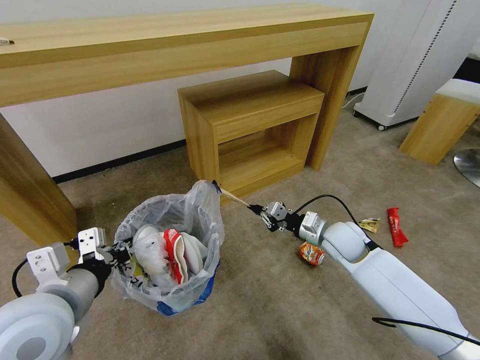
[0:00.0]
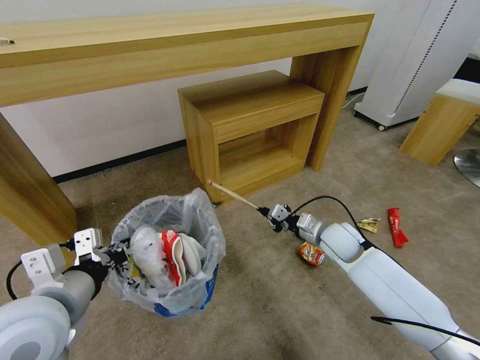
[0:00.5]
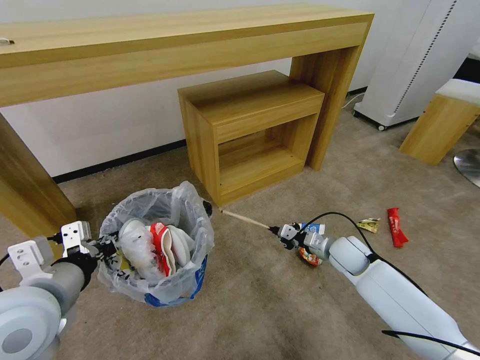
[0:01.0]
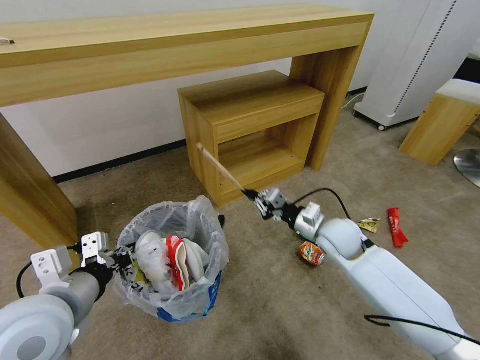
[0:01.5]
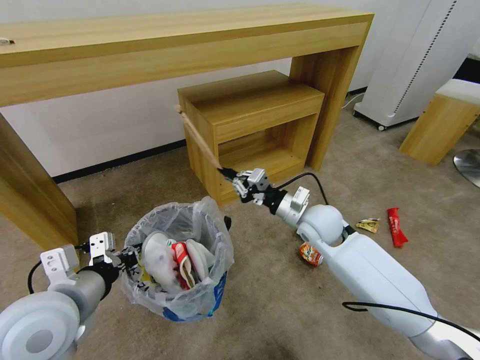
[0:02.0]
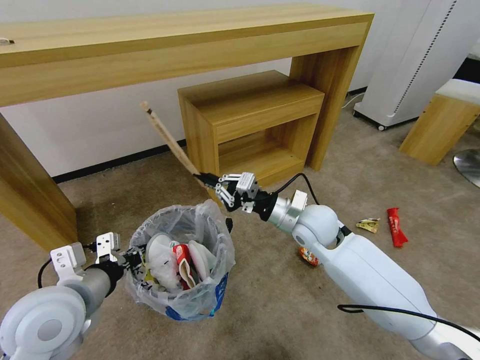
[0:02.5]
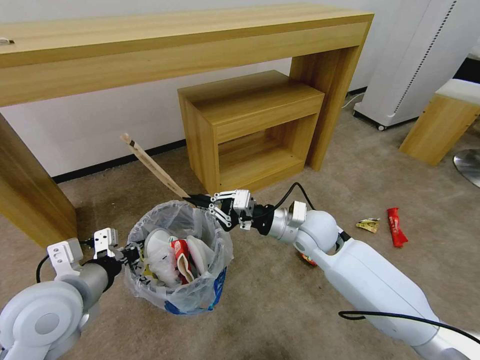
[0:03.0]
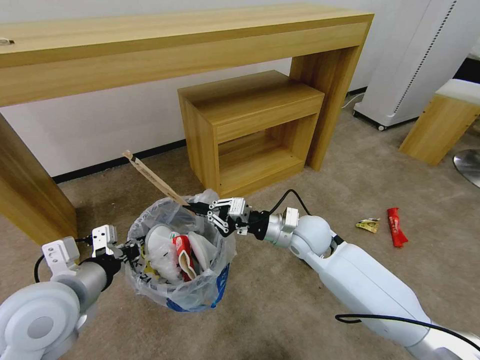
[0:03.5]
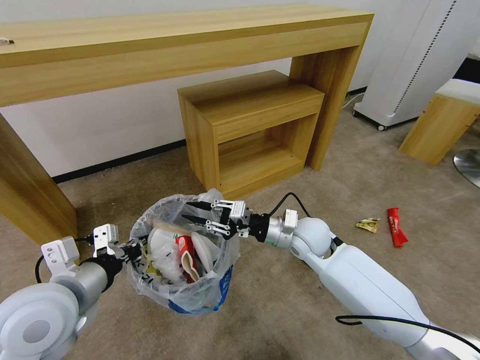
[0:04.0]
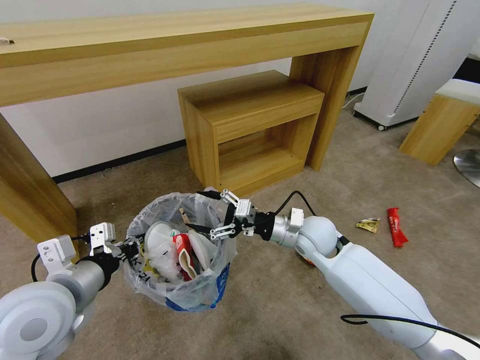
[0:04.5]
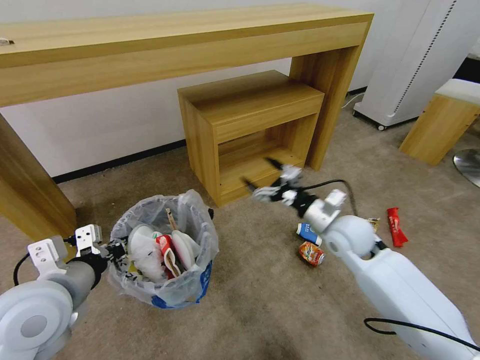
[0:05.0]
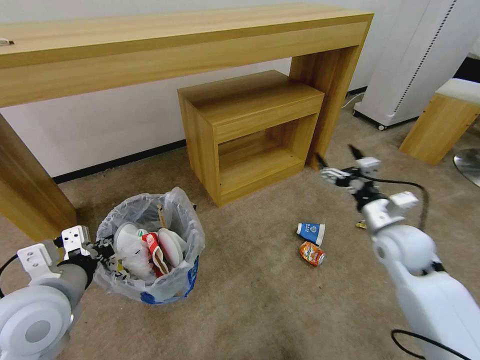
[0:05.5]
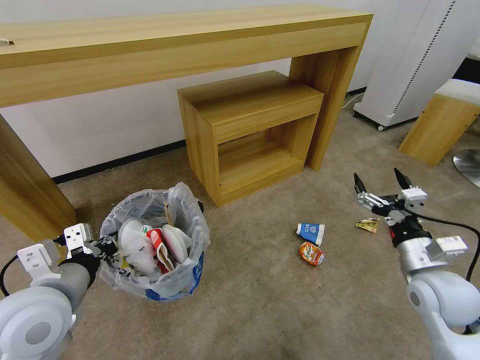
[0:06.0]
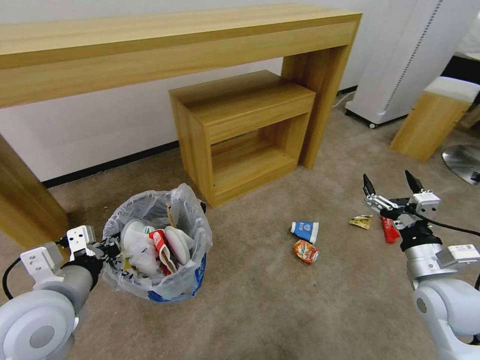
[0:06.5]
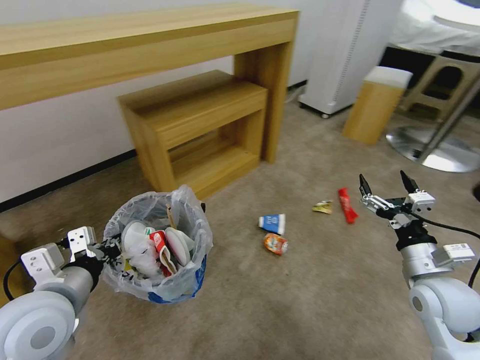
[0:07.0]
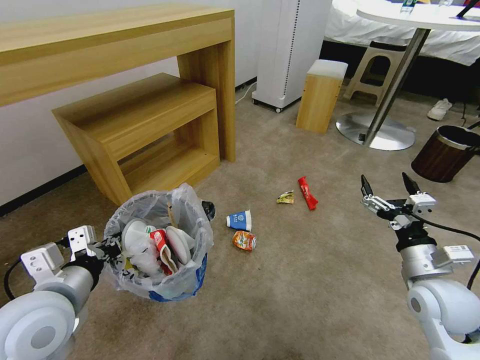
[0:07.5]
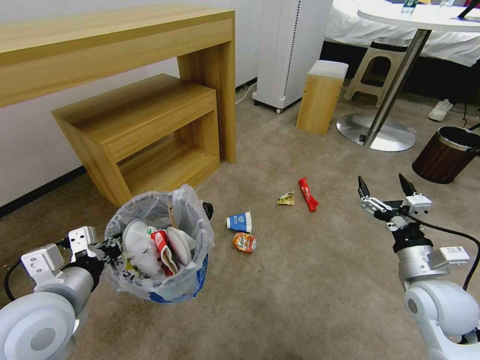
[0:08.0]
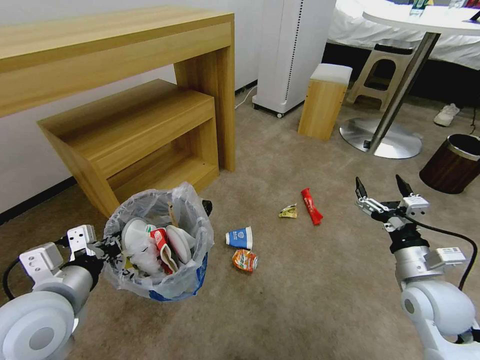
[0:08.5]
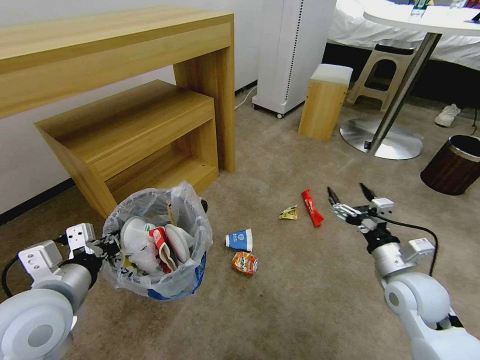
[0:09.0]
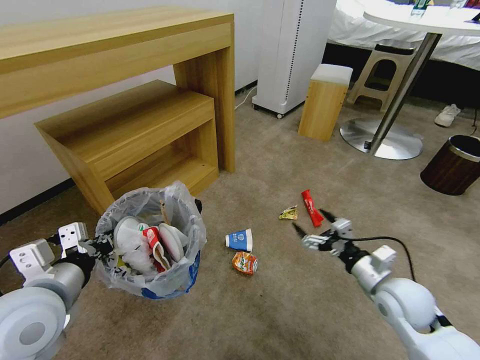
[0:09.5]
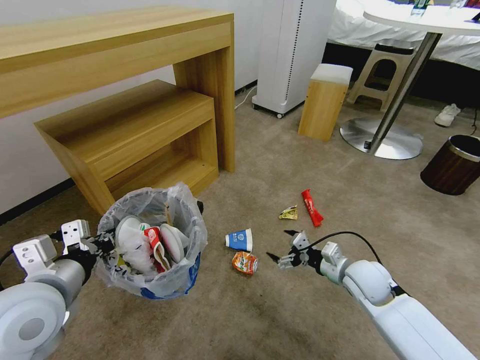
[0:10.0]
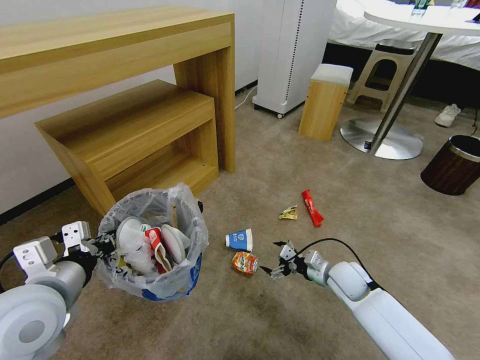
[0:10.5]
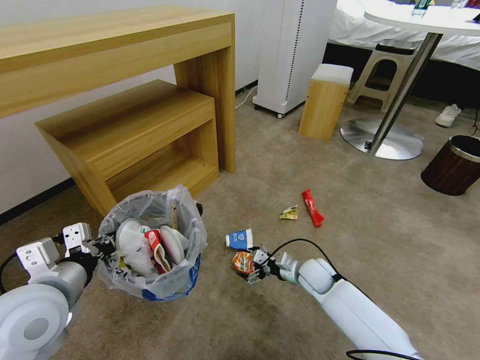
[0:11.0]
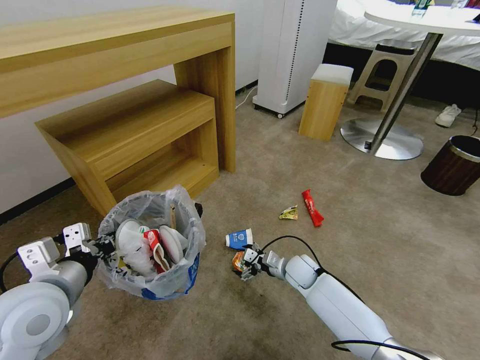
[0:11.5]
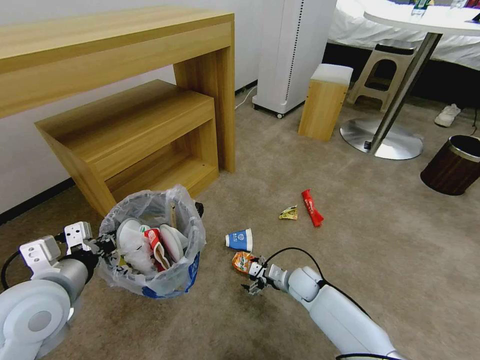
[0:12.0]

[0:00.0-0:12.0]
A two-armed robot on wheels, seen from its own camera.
Task of the whole recording: Pick up the trash bin and place the garbage on the floor into it.
0:00.0 to 0:02.0: The right gripper shifts approximately 10 cm to the left and upward.
0:04.0 to 0:06.0: The right gripper is displaced to the right and backward by approximately 25 cm, and opens its fingers.
0:08.0 to 0:10.0: The right gripper travels downward, forward and to the left by roughly 15 cm.
0:10.0 to 0:12.0: The right gripper travels downward and to the left by approximately 20 cm.

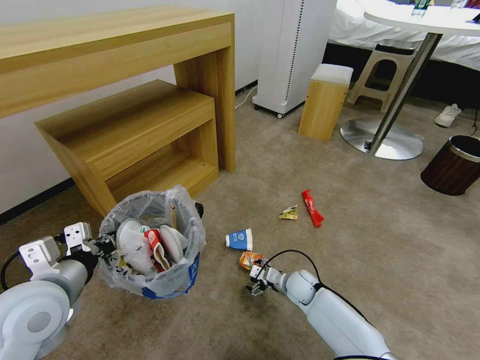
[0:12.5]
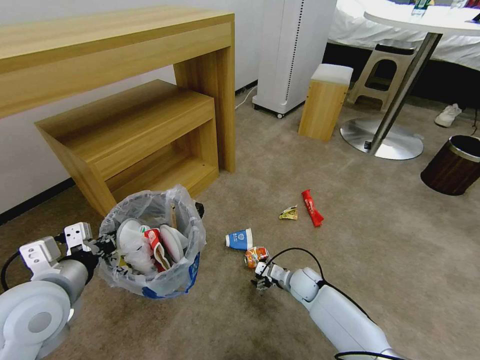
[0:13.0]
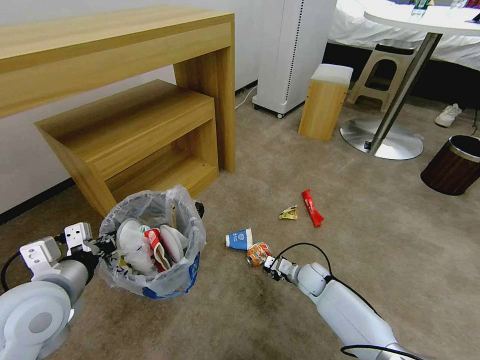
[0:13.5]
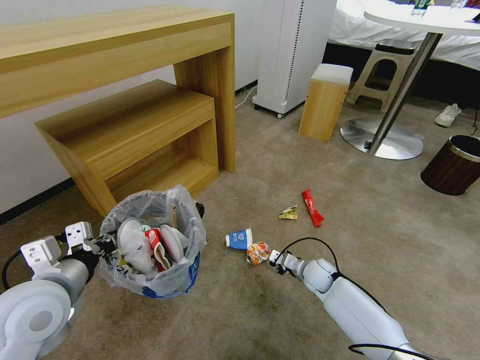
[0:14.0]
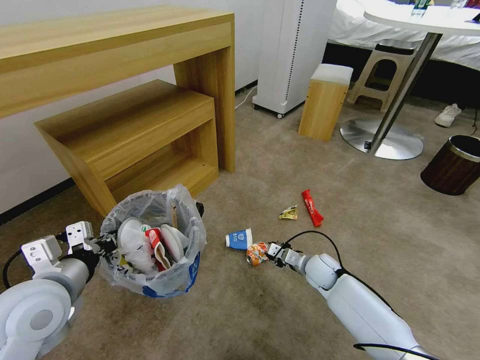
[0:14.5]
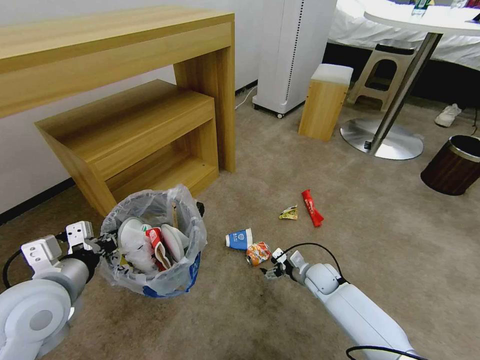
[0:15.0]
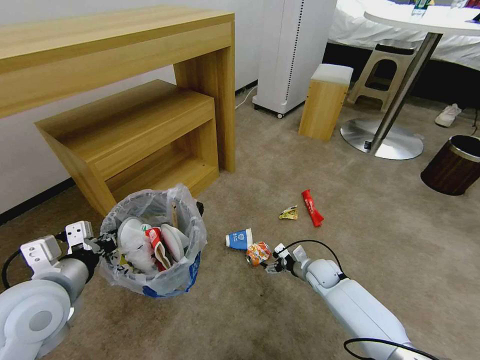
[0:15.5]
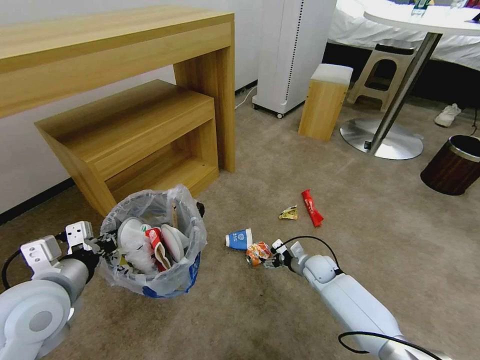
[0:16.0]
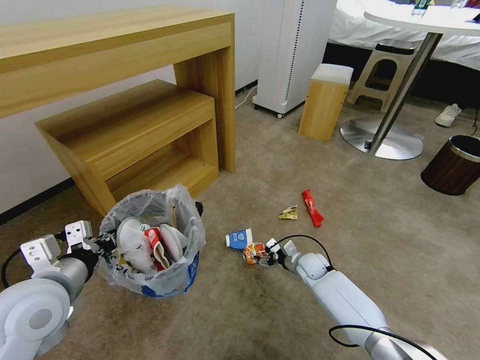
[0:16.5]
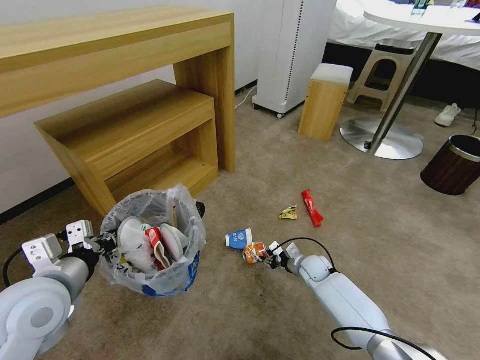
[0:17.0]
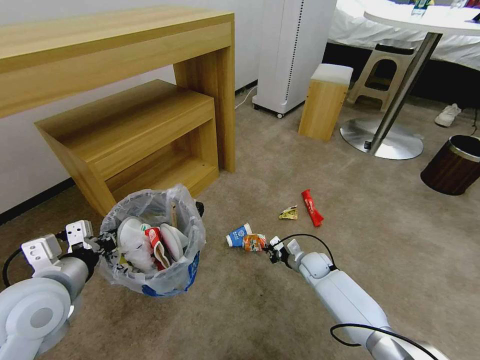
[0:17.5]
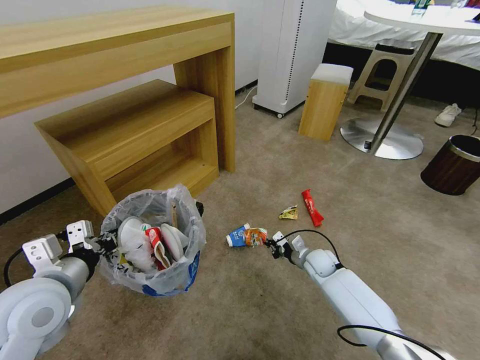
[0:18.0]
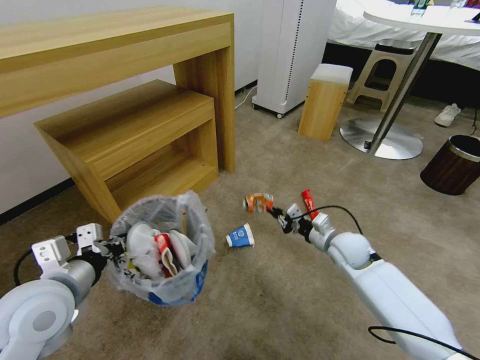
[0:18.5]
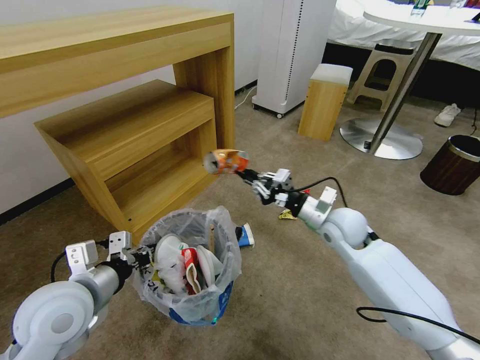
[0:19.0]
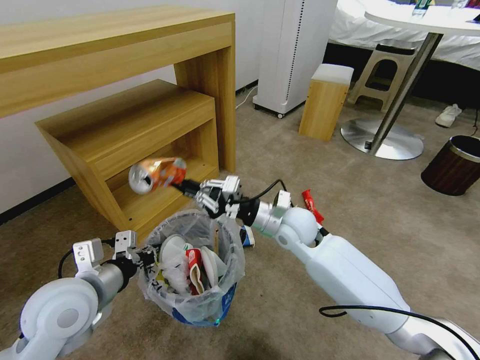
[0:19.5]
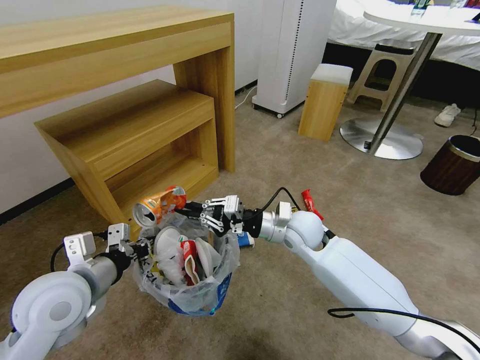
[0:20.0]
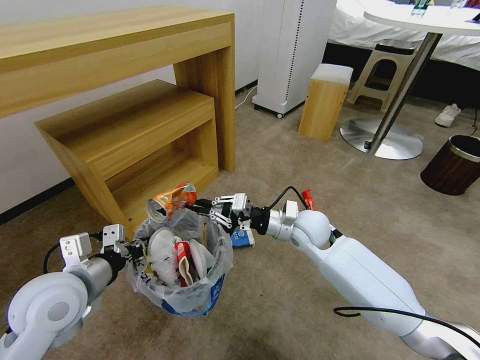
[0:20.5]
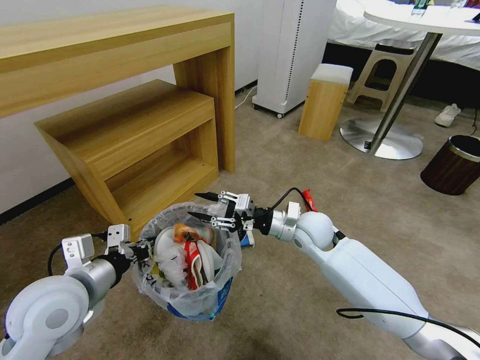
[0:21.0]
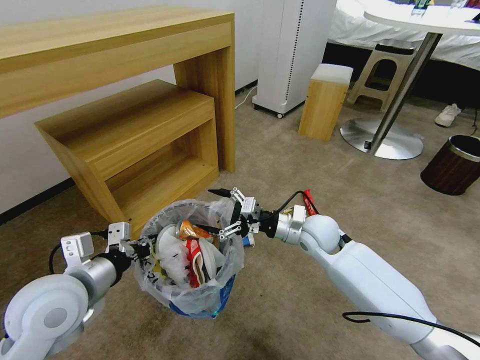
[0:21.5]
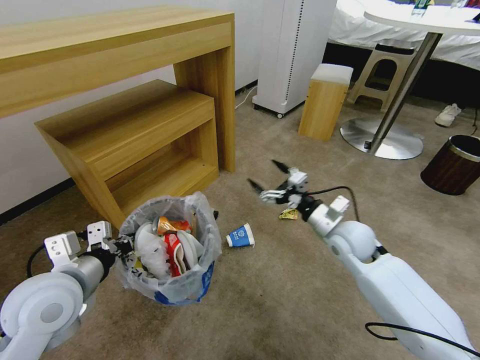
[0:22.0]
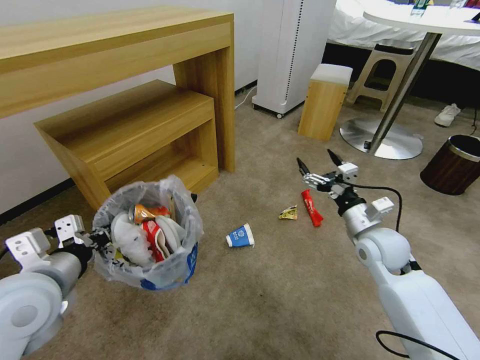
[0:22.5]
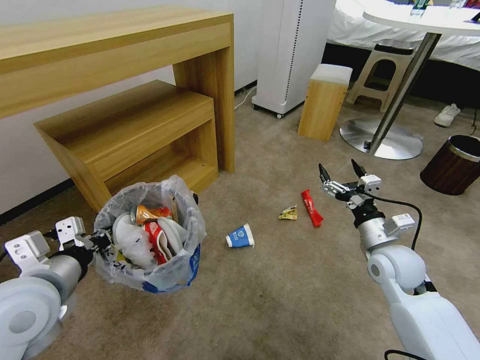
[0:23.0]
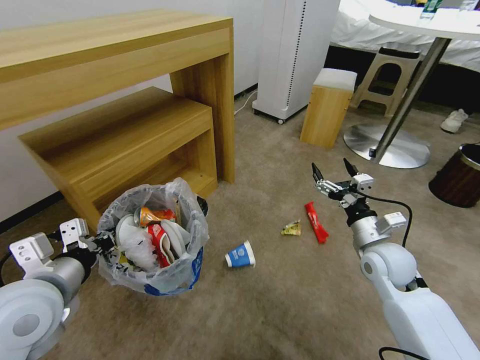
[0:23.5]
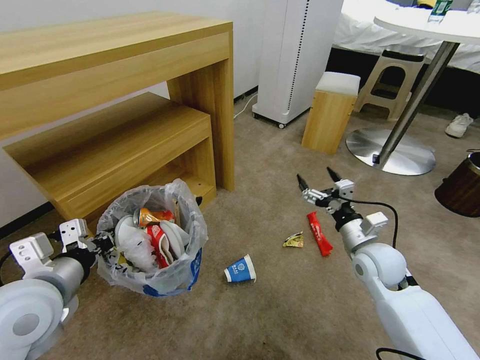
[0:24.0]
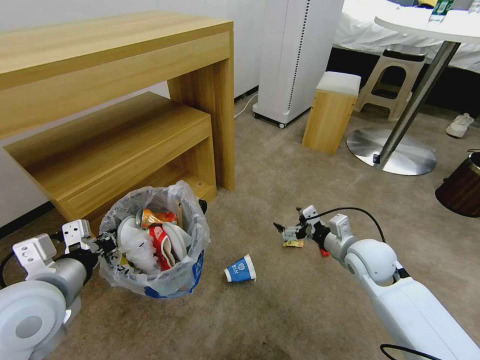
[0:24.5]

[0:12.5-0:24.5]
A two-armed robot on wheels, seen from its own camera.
Task of the whole recording: Pick up the trash bin and place the garbage on the floor into it.
0:12.5 to 0:14.5: The right gripper is displaced upward and to the right by about 10 cm, and closes up.
0:14.5 to 0:16.5: The right gripper shifts by roughly 5 cm.
0:16.5 to 0:18.5: The right gripper is displaced upward by approximately 15 cm, and closes up.
0:18.5 to 0:20.5: The right gripper moves to the left and upward, about 15 cm.
0:20.5 to 0:22.5: The right gripper moves to the right, some 15 cm, and opens.

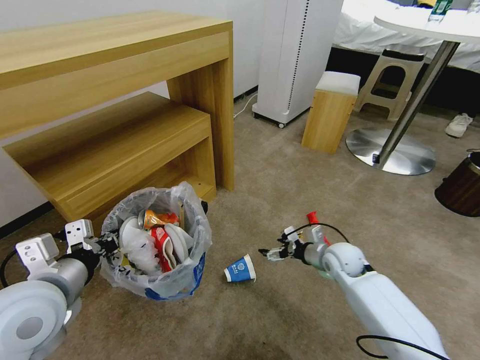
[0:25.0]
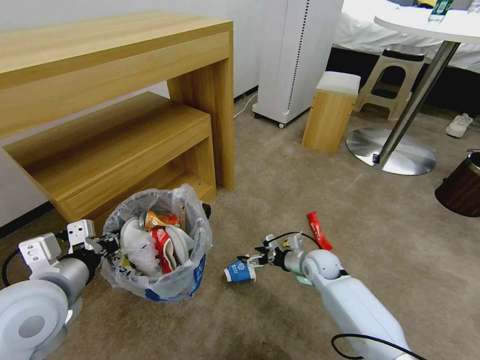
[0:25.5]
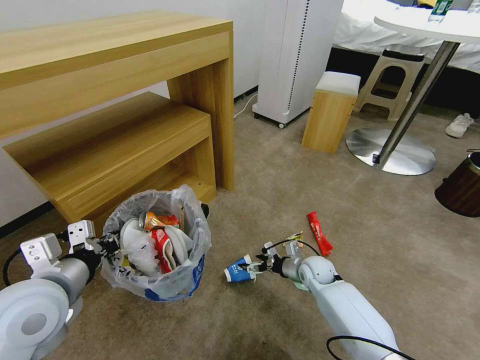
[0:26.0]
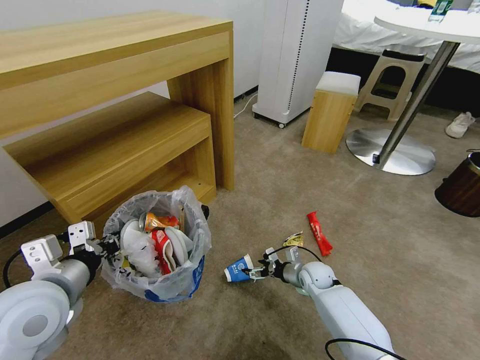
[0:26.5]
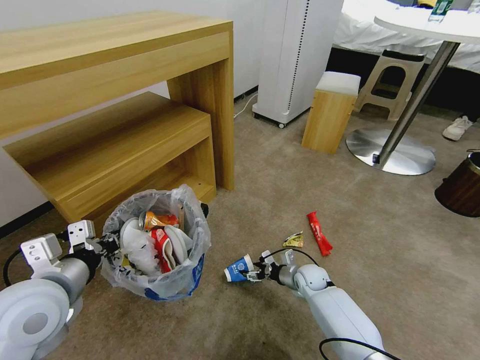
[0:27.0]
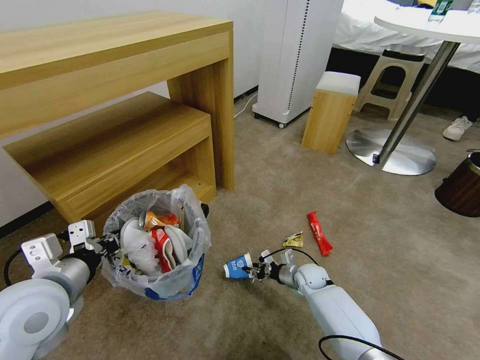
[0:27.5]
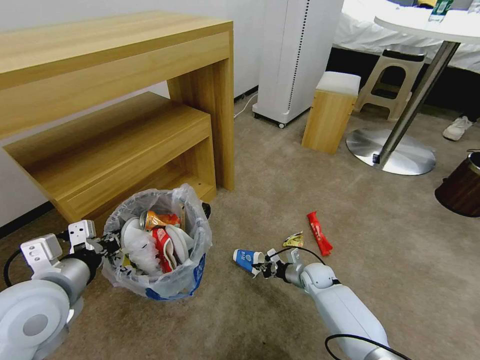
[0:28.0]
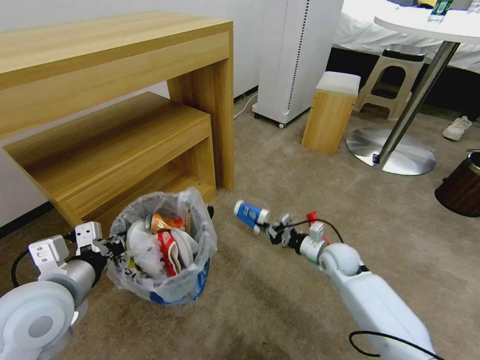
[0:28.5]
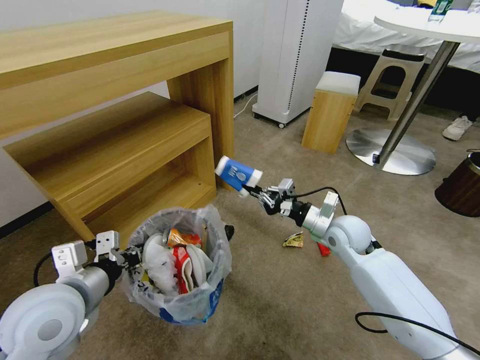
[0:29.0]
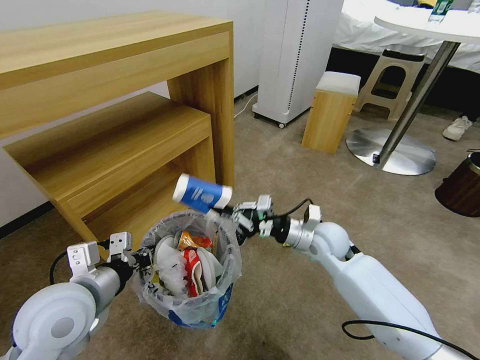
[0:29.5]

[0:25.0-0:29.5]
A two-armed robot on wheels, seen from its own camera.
Task of the whole recording: Pick up the trash bin and place the garbage on the floor into it.
0:25.0 to 0:27.0: The right gripper goes some 15 cm downward.
0:27.0 to 0:29.5: The right gripper shifts some 20 cm upward, and closes up.
